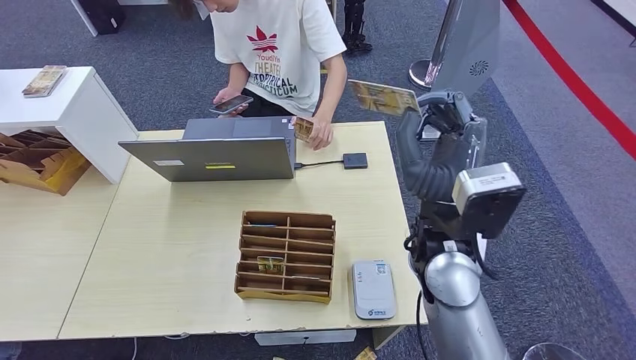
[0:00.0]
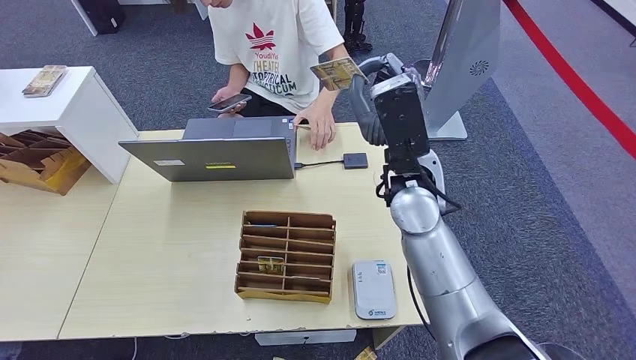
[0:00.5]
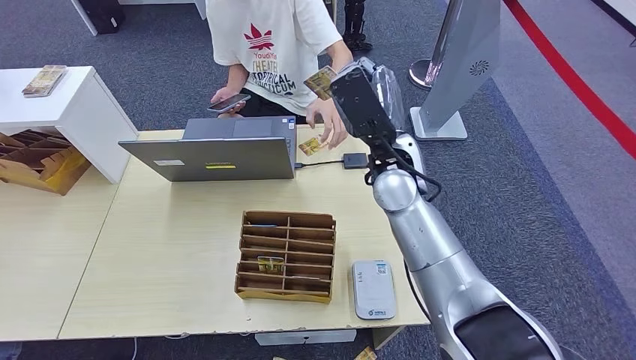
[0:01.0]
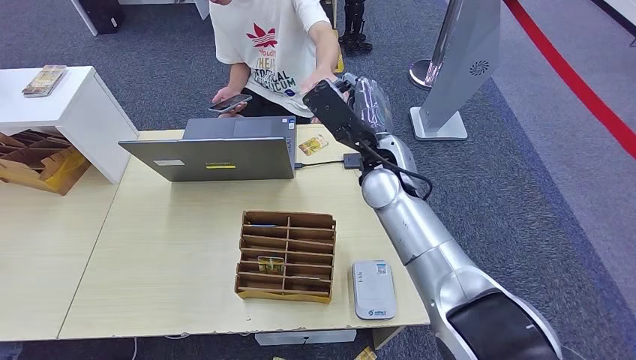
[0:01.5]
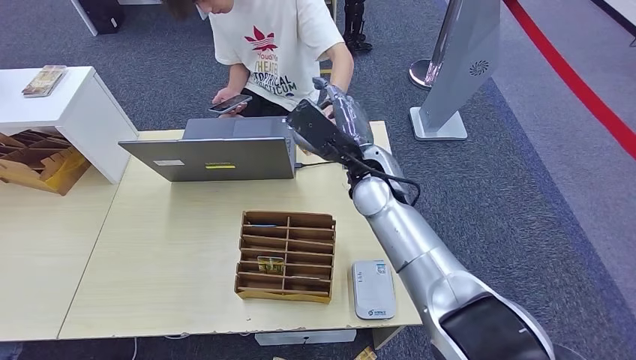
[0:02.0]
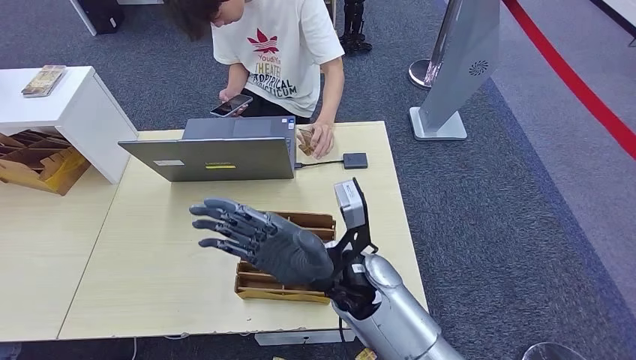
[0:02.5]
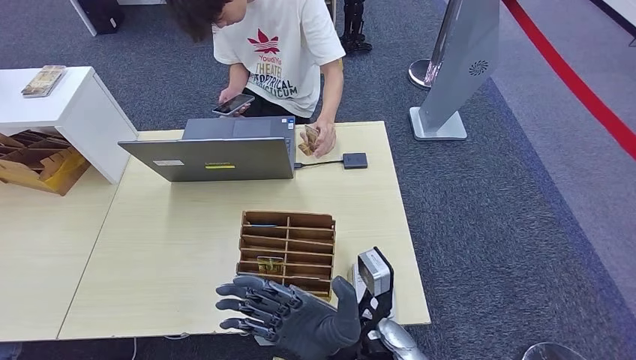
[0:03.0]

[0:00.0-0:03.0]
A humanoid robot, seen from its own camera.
Step, 0:00.0 to 0:03.0: Hand the room key to the person.
0:00.0 to 0:01.5: The right hand is displaced forward by roughly 15 cm.
0:01.5 to 0:03.0: The right hand travels backward and downward by roughly 25 cm.
